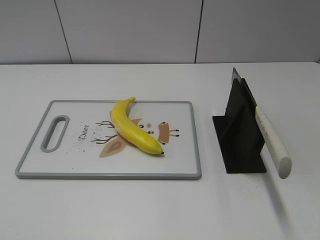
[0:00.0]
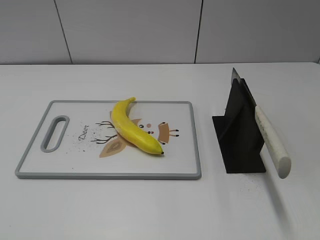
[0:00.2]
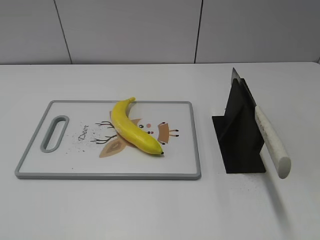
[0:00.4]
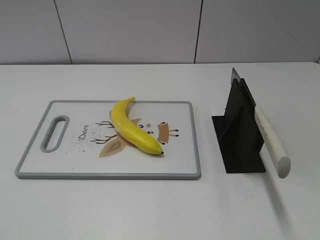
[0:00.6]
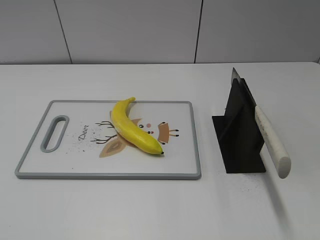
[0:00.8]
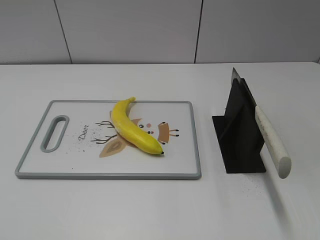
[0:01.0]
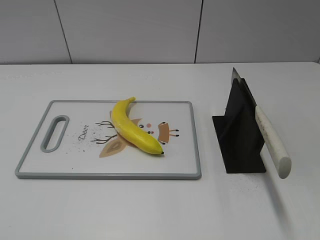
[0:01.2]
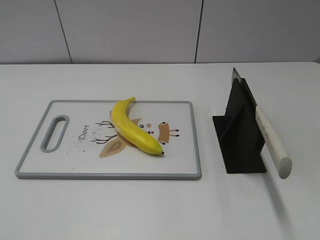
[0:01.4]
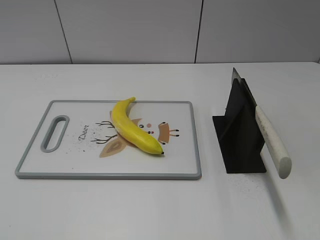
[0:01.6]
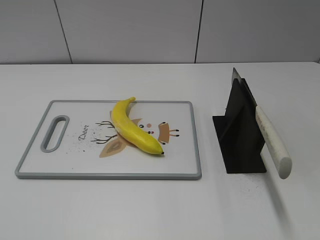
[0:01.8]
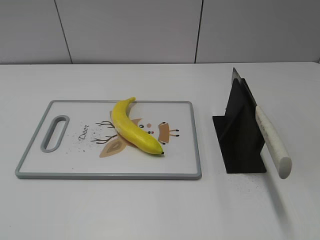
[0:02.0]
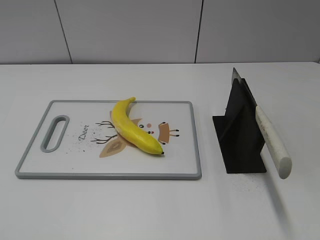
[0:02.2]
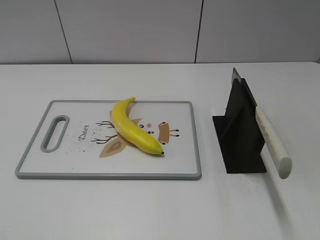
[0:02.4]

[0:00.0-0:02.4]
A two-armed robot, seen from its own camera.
Task of the whole recording: cut plastic banana.
0:01.2 to 0:02.4: Both grippers stay put.
